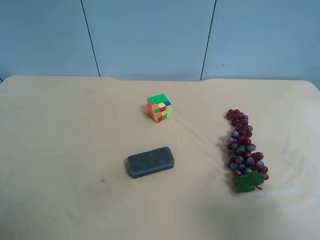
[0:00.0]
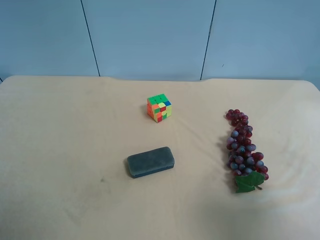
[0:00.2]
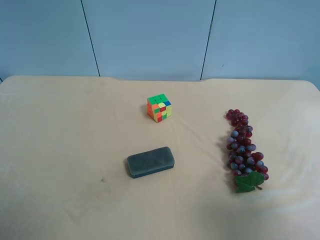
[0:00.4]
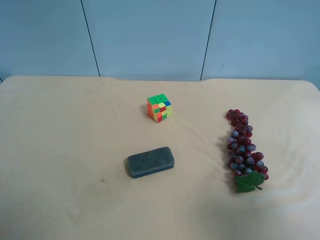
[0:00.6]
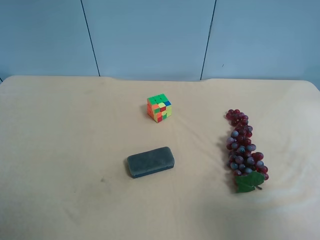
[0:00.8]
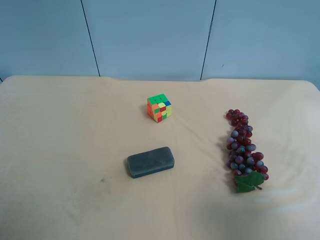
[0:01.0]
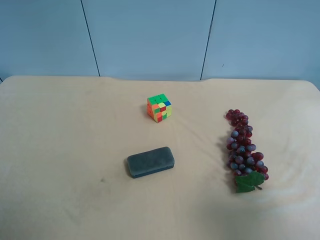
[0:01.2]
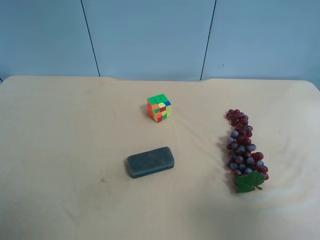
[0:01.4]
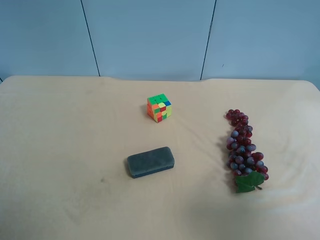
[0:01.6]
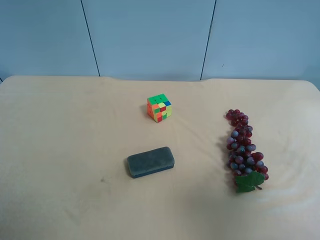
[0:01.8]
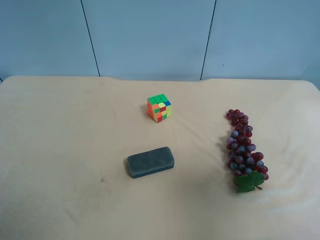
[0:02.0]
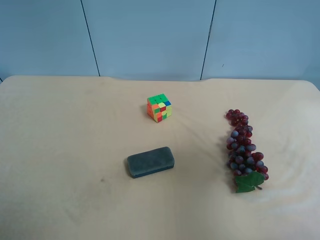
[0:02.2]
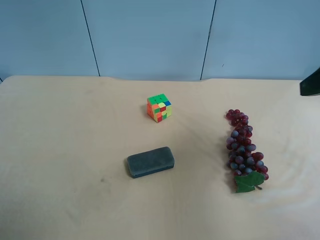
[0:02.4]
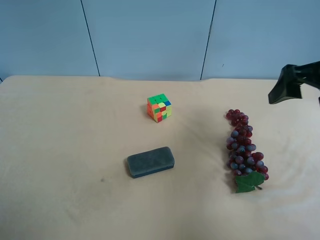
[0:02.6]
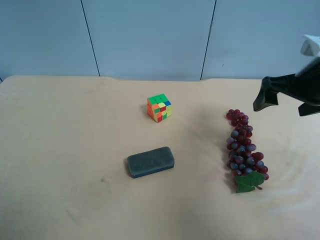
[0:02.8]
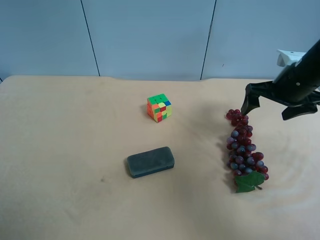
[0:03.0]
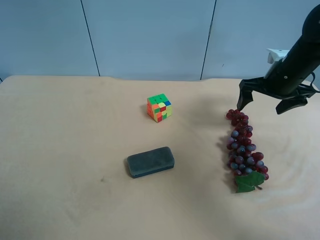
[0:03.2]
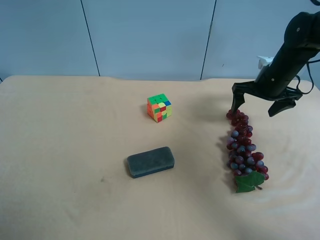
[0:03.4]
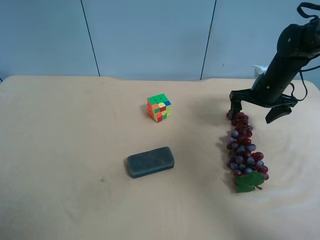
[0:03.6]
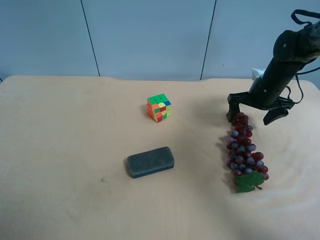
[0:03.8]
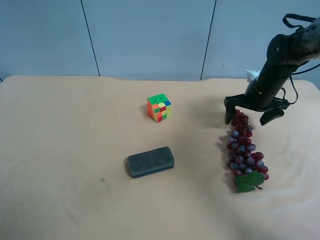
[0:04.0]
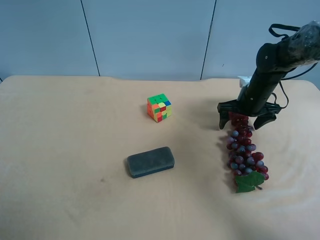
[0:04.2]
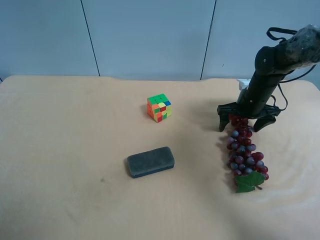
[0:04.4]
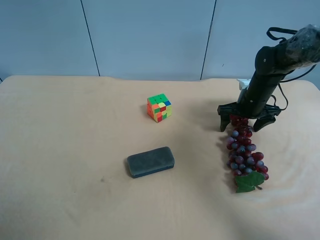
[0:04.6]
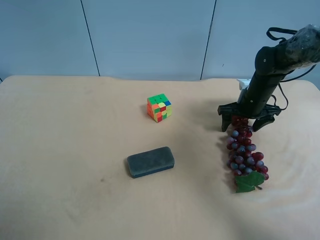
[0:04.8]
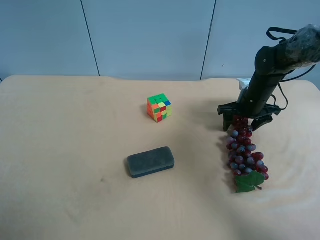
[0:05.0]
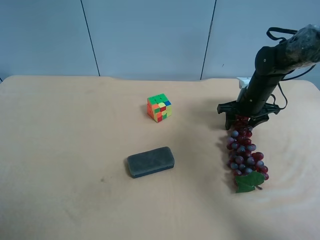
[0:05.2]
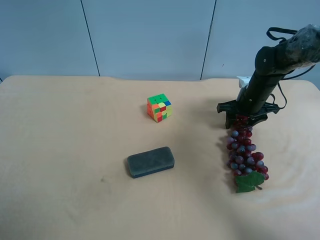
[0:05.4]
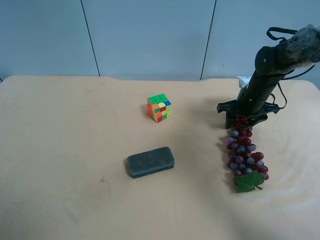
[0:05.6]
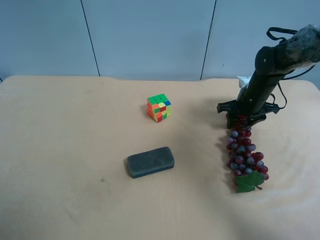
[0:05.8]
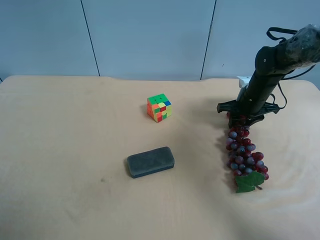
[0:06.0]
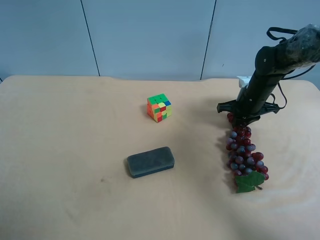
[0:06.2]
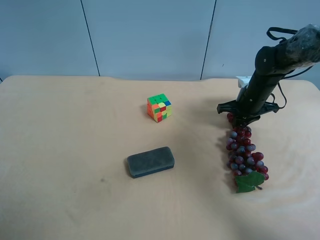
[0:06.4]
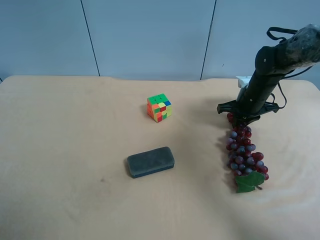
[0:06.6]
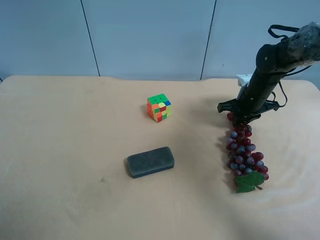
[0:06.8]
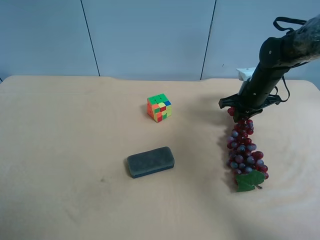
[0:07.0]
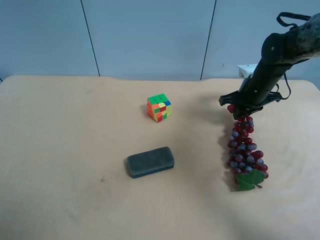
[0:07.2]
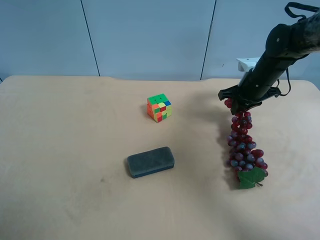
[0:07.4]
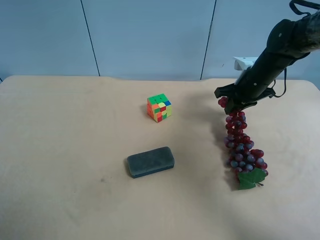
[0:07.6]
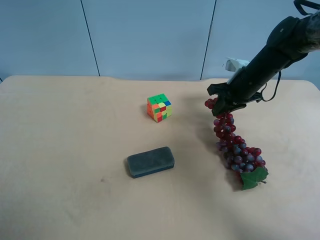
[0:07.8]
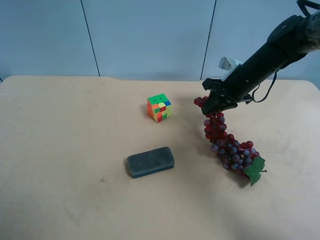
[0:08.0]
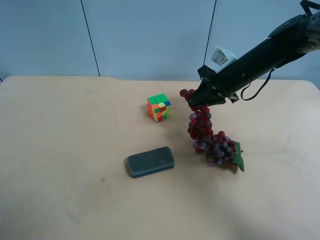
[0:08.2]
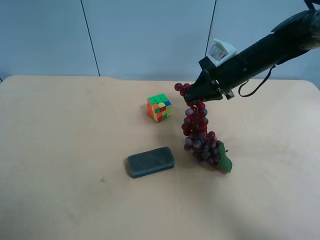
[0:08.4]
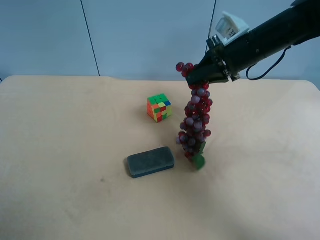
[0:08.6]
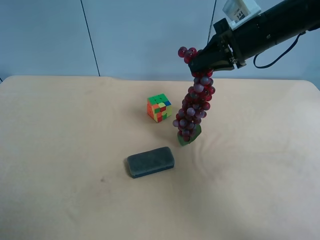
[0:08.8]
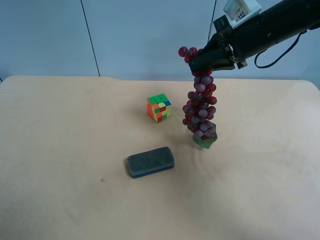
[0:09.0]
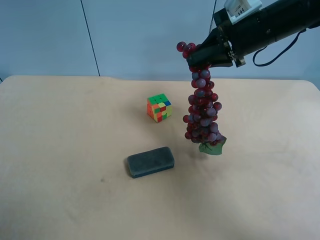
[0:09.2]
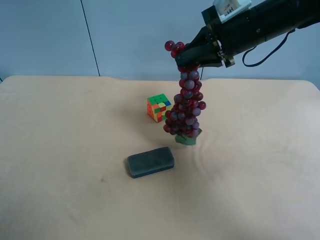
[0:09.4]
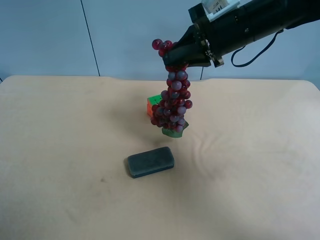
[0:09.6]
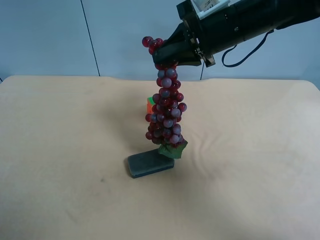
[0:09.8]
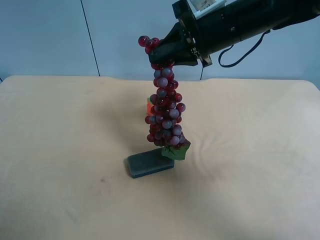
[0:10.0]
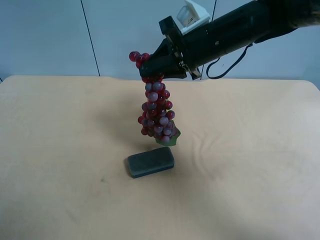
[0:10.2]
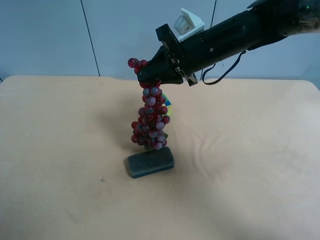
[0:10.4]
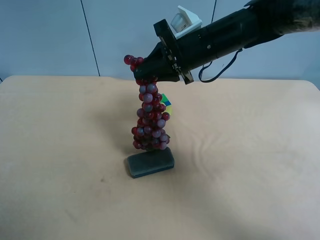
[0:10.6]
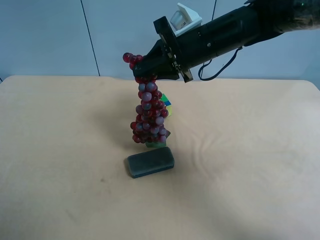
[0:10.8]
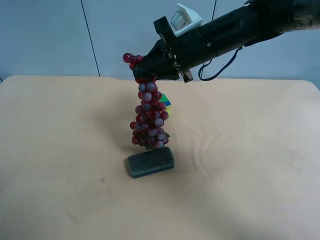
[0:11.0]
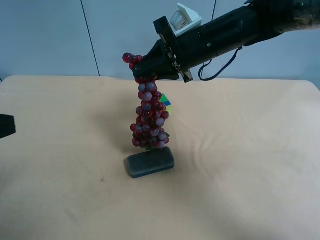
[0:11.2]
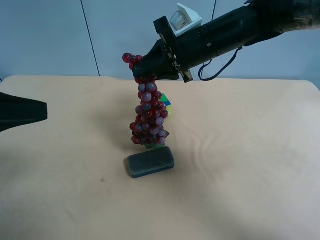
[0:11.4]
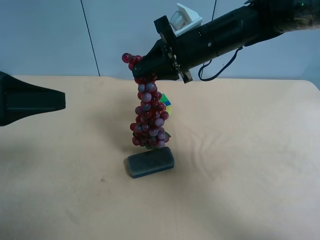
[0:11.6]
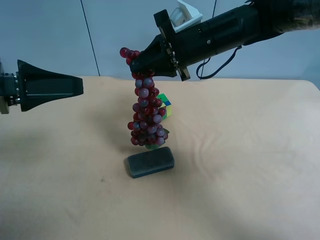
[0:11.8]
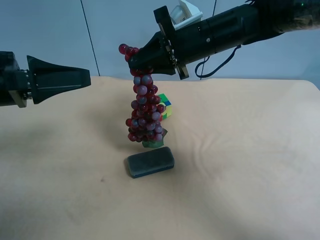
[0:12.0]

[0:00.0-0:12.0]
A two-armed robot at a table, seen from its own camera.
Task of the whole recording: use the right gripper to pick up the item and transfer it from the right gripper to the left gripper.
0:01.6 to 0:03.0: The right gripper is displaced forward by roughly 30 cm.
0:03.0 to 0:04.4: The right gripper travels downward and forward by about 10 cm.
0:04.4 to 0:06.0: The right gripper closes its fingers.
0:06.0 to 0:07.6: The right gripper moves upward, roughly 5 cm.
0:07.6 to 0:09.0: The right gripper travels upward by some 10 cm.
0:09.0 to 0:10.4: The right gripper moves to the left, approximately 10 cm.
0:10.4 to 0:12.0: The left gripper shifts about 20 cm forward.

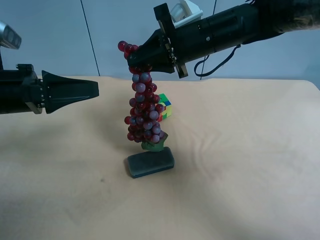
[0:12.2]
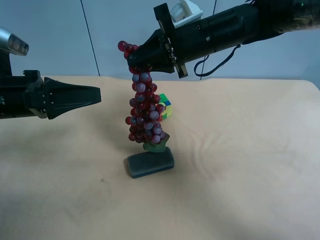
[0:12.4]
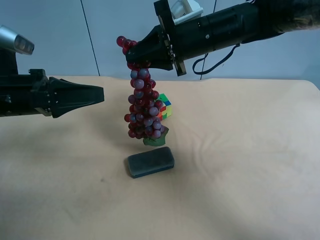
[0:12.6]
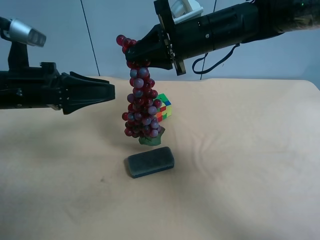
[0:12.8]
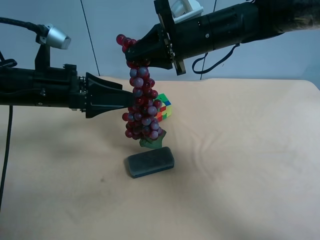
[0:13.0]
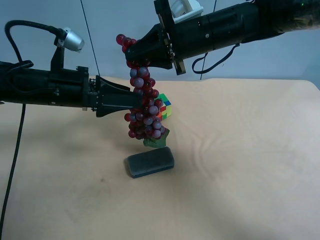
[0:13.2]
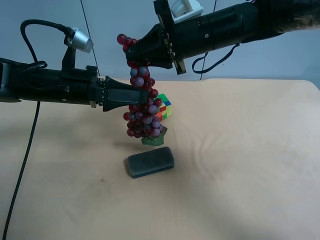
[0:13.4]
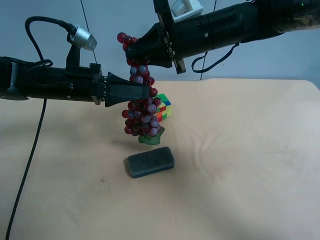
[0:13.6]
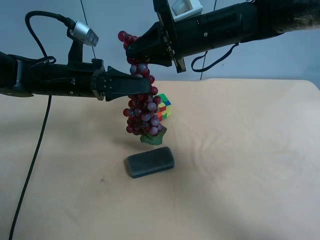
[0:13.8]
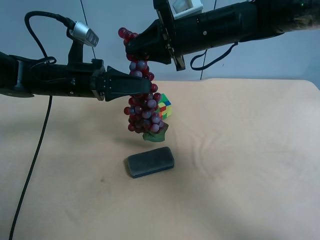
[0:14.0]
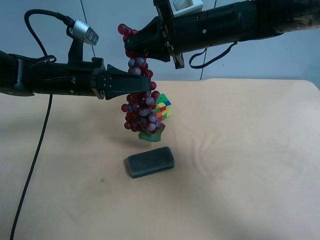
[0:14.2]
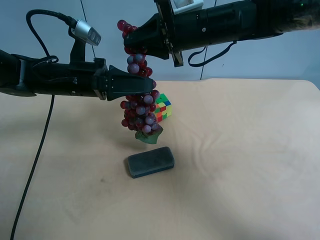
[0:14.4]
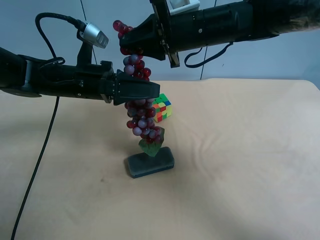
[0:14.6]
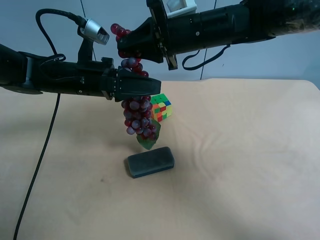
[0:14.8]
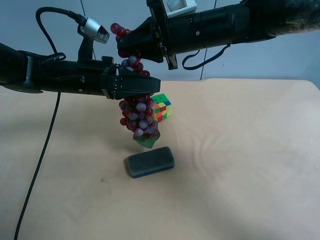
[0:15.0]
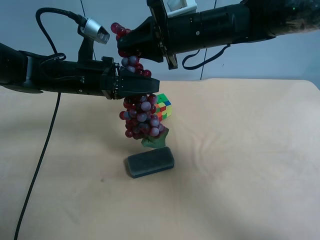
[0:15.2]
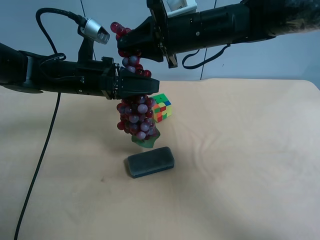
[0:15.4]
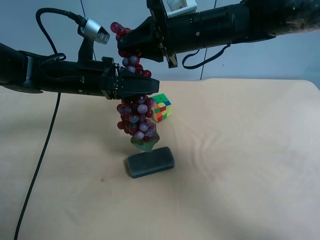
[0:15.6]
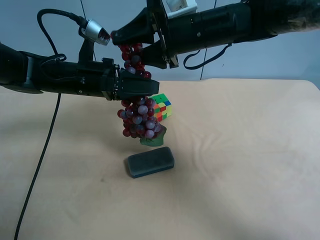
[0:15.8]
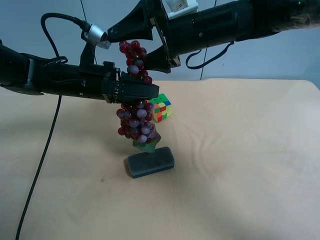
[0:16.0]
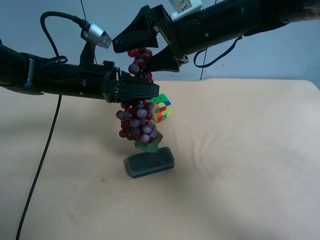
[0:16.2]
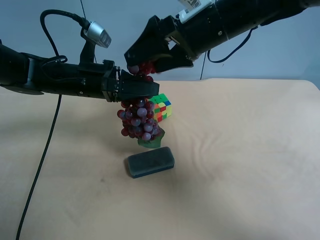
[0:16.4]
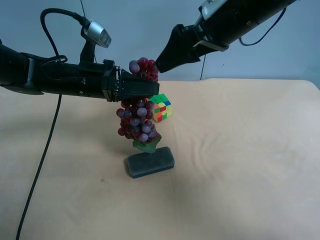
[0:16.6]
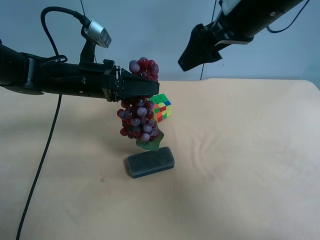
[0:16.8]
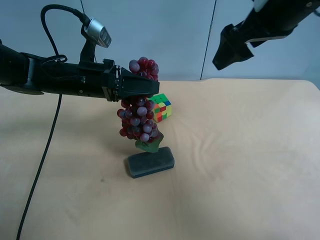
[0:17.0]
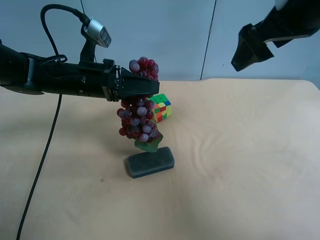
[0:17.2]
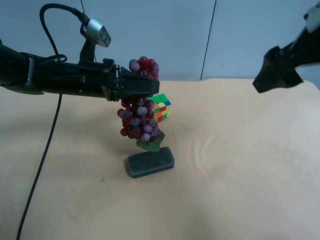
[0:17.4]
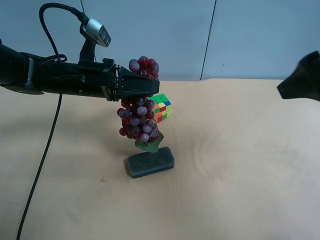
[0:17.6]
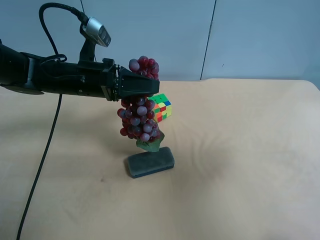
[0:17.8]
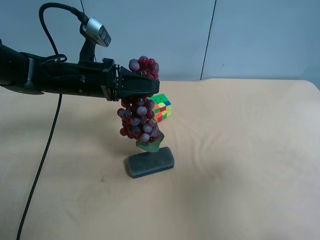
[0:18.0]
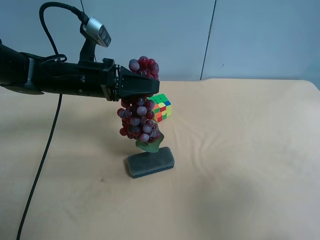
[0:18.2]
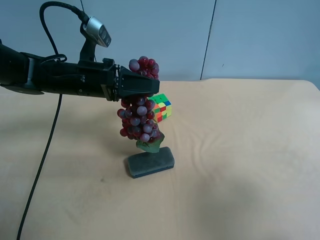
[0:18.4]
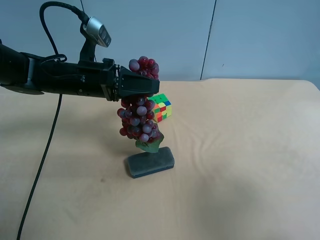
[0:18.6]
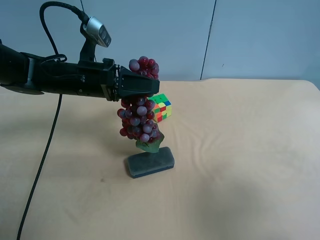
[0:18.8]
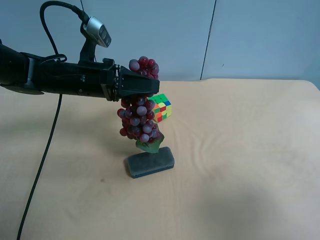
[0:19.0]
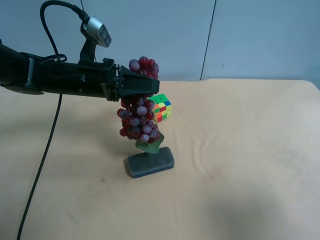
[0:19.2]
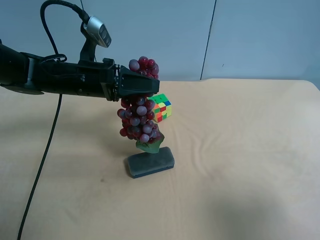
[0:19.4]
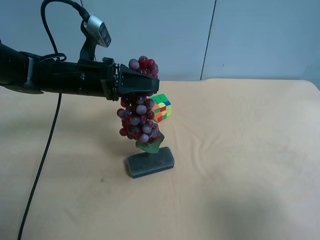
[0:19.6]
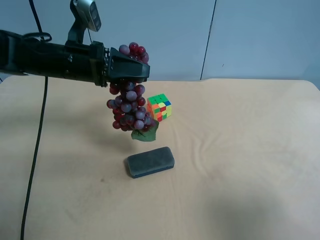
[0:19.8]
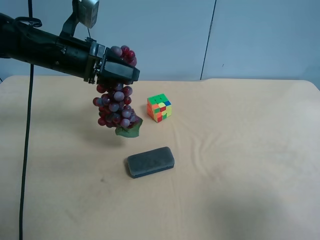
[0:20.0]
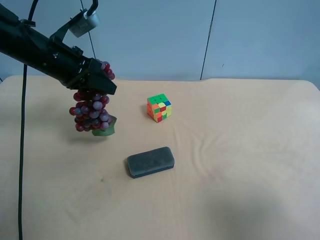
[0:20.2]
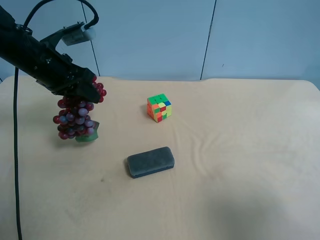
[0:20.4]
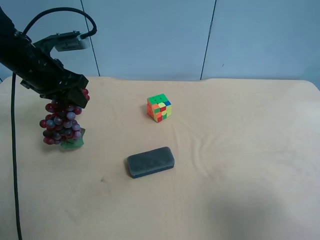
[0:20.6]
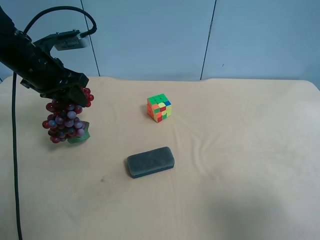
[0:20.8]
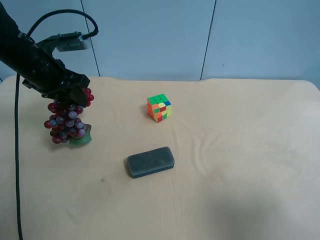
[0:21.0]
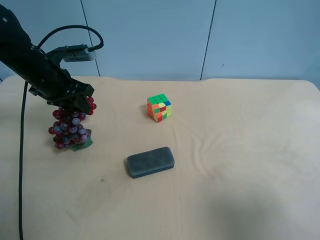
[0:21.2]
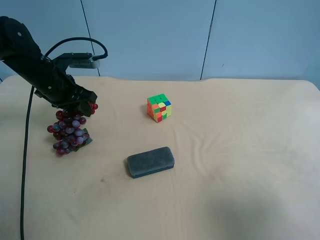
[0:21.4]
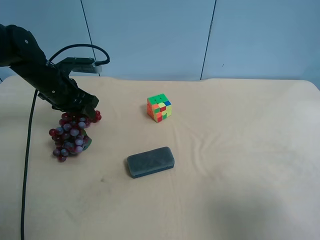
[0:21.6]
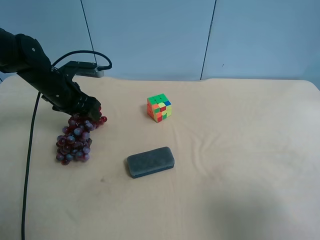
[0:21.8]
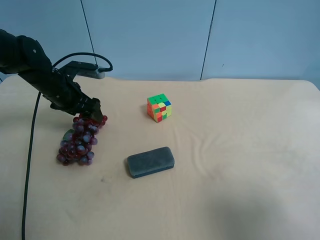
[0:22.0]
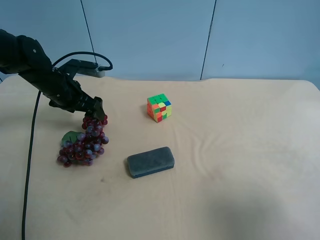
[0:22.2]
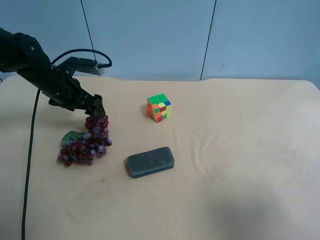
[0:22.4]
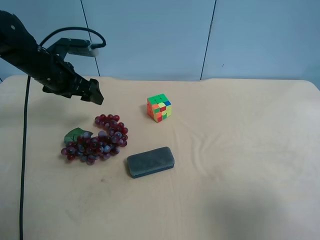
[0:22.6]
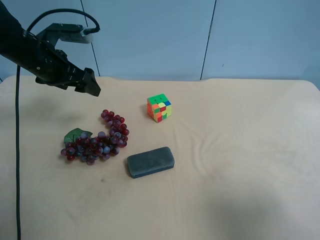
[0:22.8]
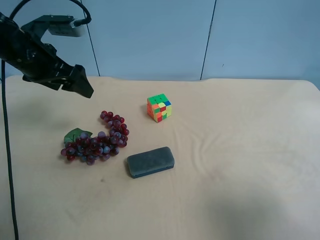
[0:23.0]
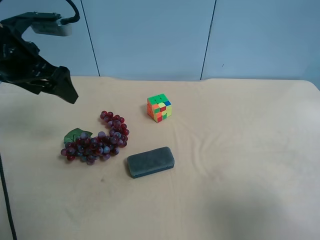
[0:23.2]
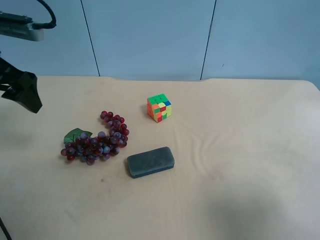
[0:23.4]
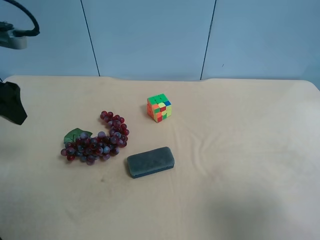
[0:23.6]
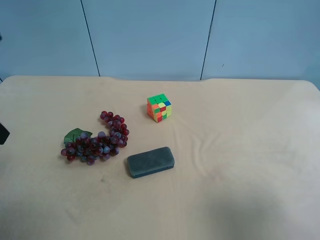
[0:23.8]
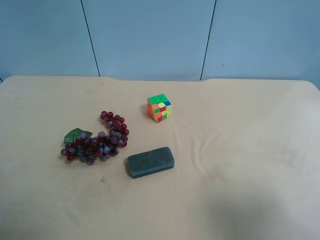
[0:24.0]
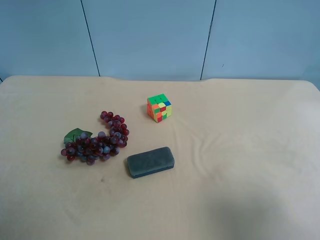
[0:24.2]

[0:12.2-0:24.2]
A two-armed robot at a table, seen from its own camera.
Task of the whole recording: use the right gripper to pick up the item and transfer it from the right gripper to the left gripper.
0:12.2 to 0:13.8: The left gripper heads forward and to the right, covering some 10 cm.
0:13.8 to 0:15.2: The left gripper closes.
0:15.2 to 0:16.6: The right gripper heads to the right and upward, covering roughly 10 cm, and opens.
0:16.6 to 0:18.2: The right gripper travels backward and to the right by roughly 30 cm.
0:19.8 to 0:21.2: The left gripper moves to the left, roughly 5 cm.
0:21.2 to 0:22.6: The left gripper opens up.
0:22.6 to 0:24.2: The left gripper heads backward, covering about 30 cm.
